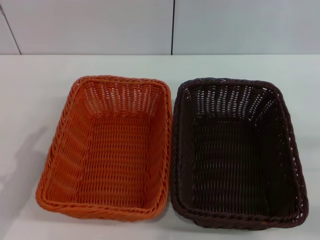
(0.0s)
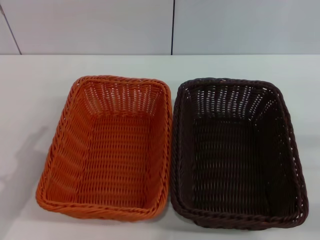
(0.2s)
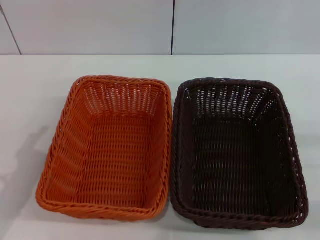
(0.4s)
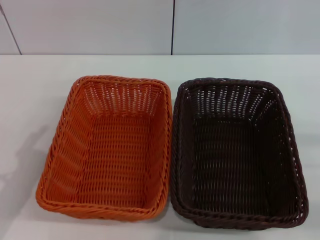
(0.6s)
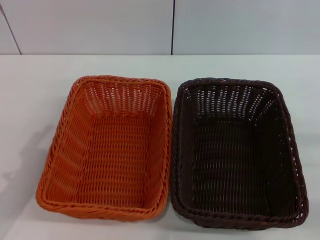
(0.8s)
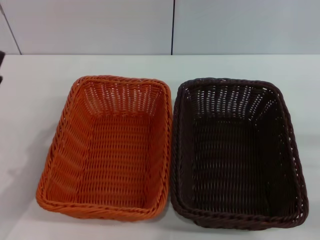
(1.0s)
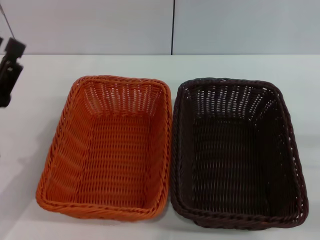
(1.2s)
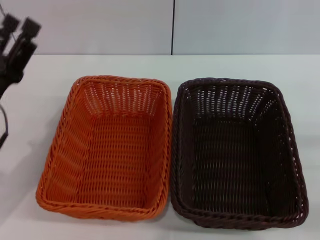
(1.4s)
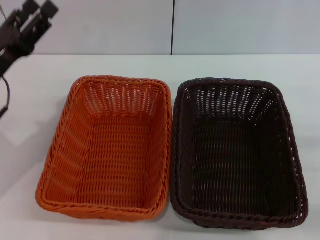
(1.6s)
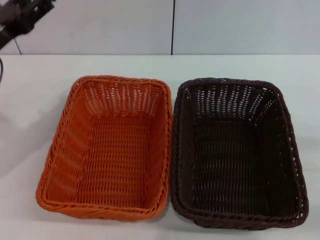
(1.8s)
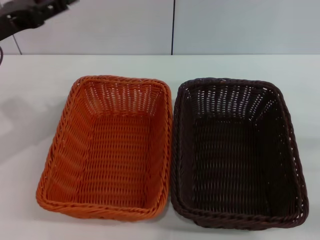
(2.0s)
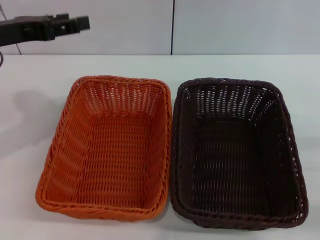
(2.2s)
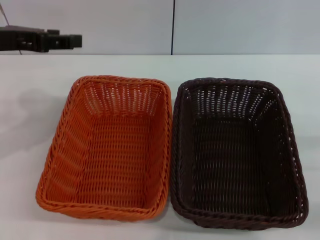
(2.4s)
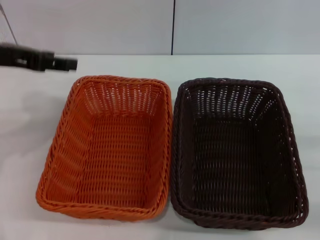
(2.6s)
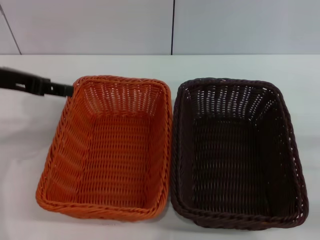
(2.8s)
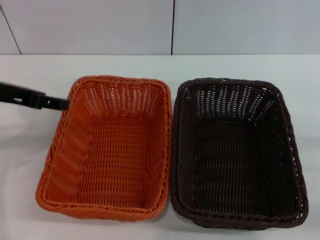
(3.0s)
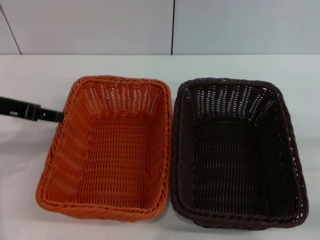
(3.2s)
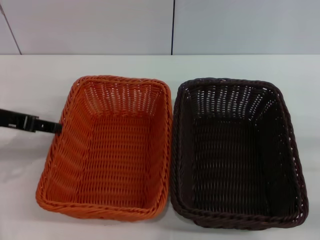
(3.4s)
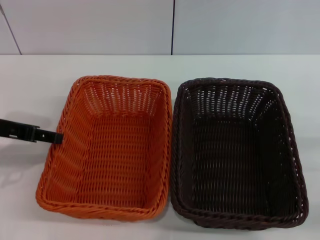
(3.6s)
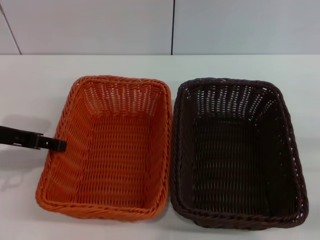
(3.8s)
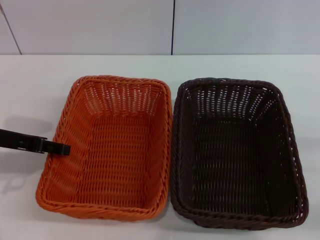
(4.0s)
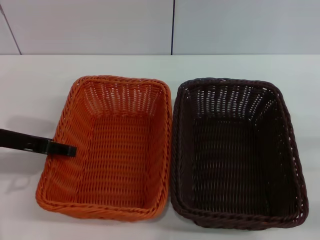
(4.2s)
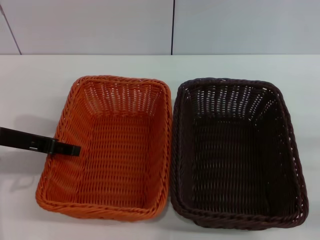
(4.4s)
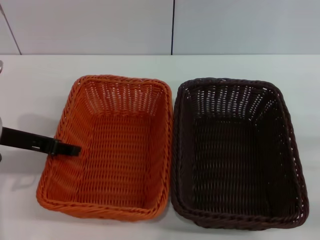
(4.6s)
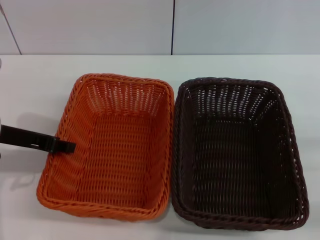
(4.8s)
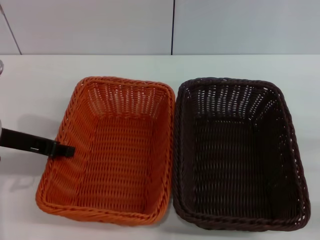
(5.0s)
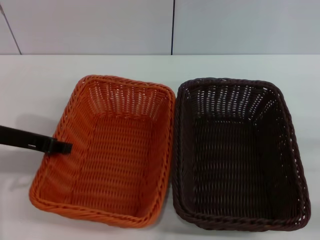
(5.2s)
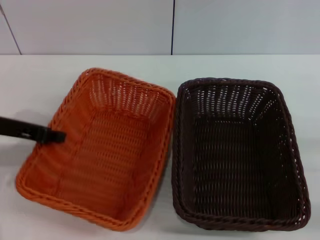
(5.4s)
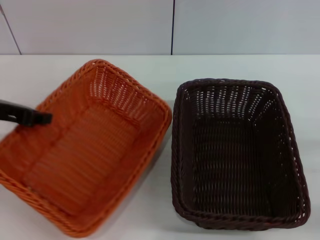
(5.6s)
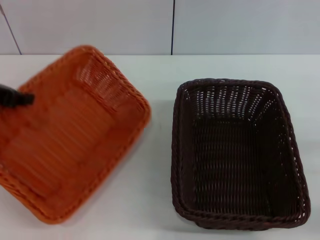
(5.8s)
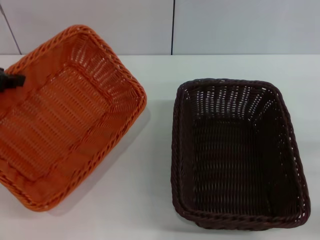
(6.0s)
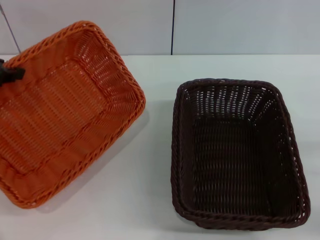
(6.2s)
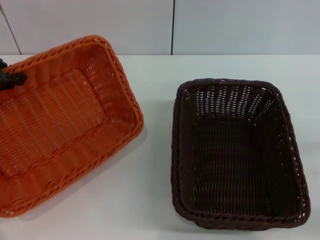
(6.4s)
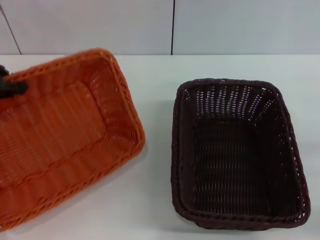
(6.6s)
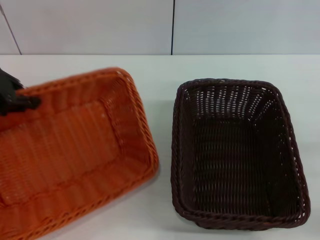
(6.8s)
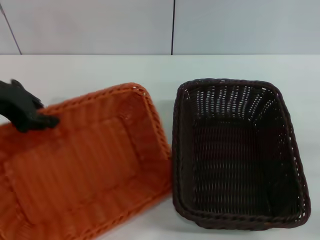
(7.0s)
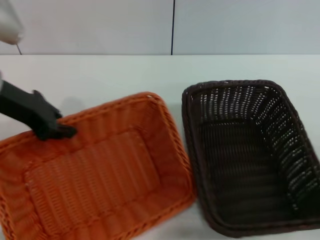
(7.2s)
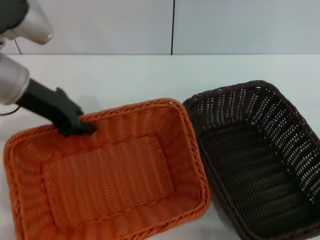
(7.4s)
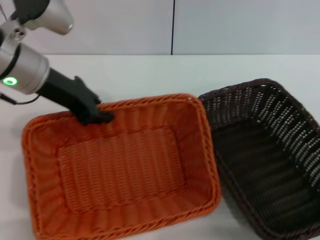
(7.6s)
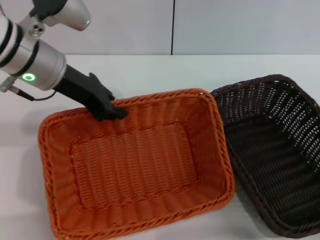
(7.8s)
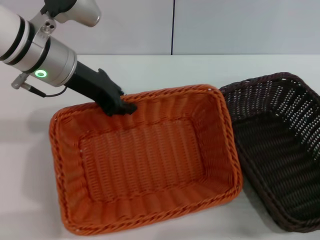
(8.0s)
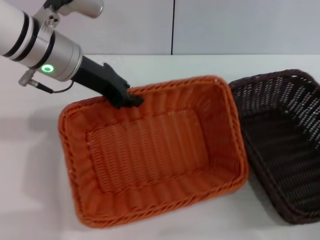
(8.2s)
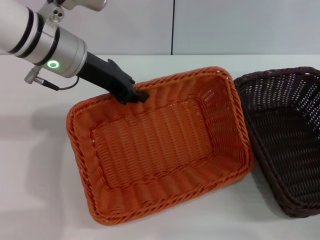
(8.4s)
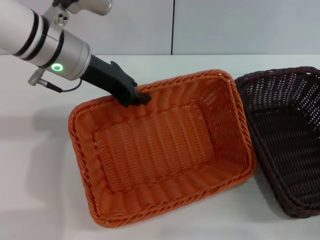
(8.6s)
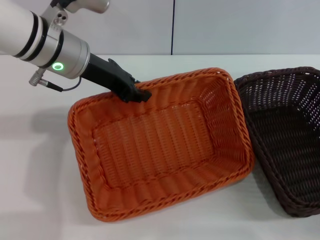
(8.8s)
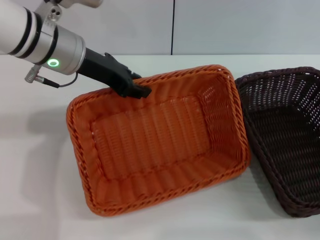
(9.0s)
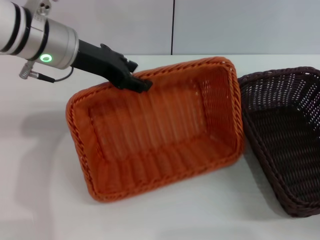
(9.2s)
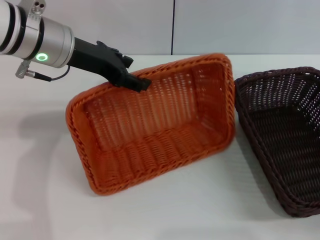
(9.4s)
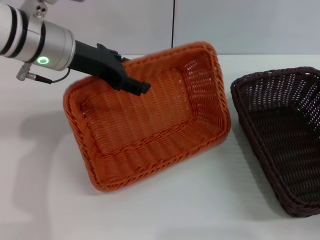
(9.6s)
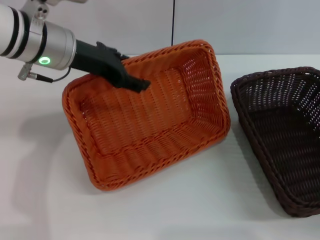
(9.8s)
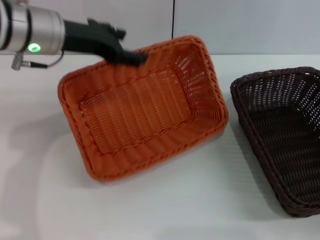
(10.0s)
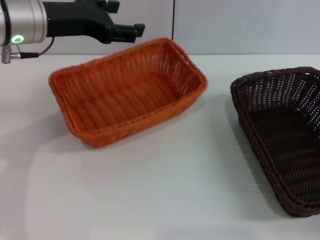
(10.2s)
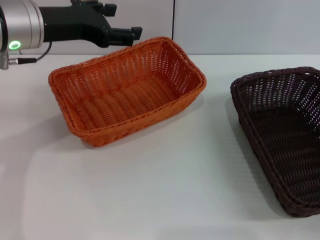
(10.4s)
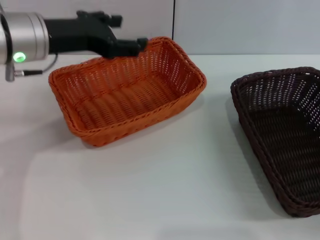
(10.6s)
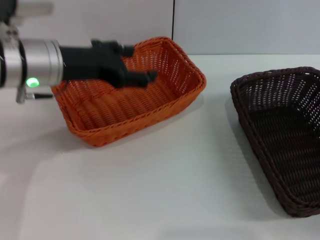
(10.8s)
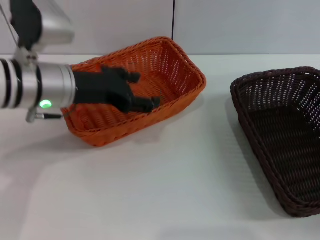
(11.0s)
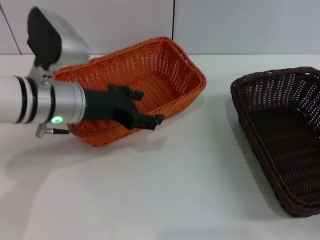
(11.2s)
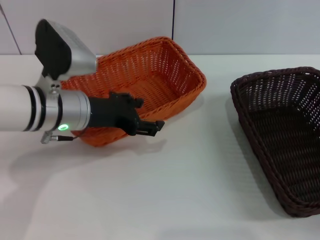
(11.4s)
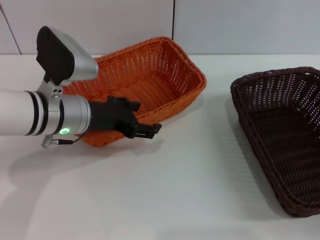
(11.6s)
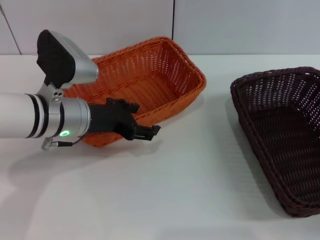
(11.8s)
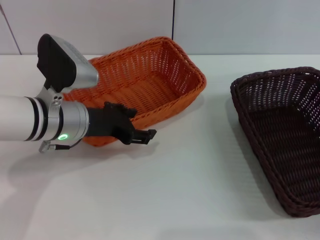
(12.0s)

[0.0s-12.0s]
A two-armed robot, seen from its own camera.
Step, 0.0s to 5.8s: Pick up the light basket with the left gripper.
0.0s to 1.6s: The left gripper shifts about 10 cm forward.
1.6s to 3.0s: The left gripper travels upward by roughly 10 cm.
3.0s to 4.4s: The left gripper travels downward by some 5 cm.
4.4s to 6.0s: The left gripper shifts roughly 10 cm upward, and closes up.
6.0s to 7.6s: The left gripper heads to the right, covering about 10 cm.
9.0s to 10.4s: The left gripper moves about 5 cm, and opens up.
10.4s to 12.0s: The left gripper travels downward by roughly 10 cm.

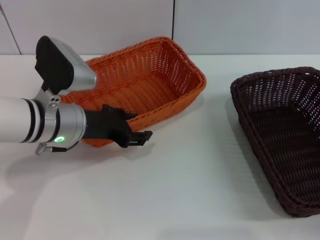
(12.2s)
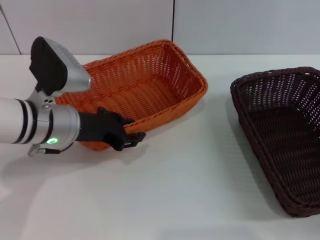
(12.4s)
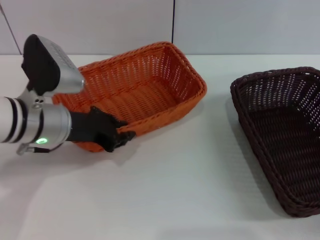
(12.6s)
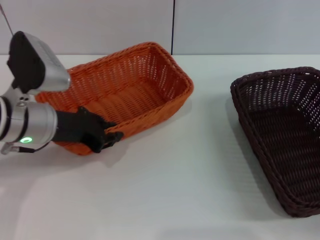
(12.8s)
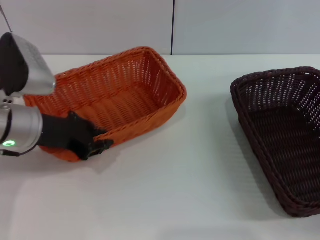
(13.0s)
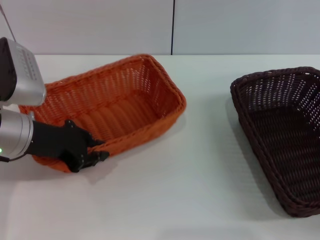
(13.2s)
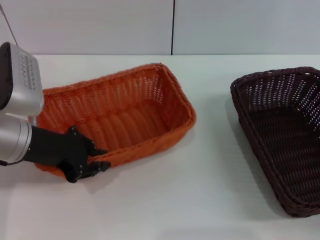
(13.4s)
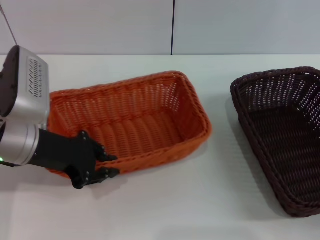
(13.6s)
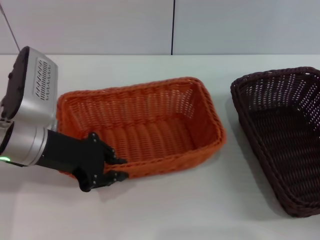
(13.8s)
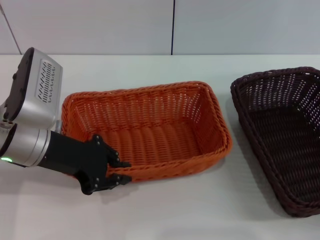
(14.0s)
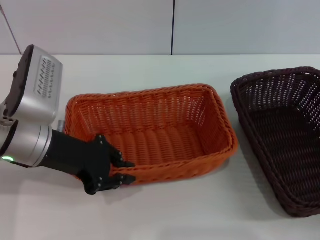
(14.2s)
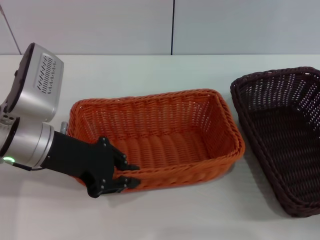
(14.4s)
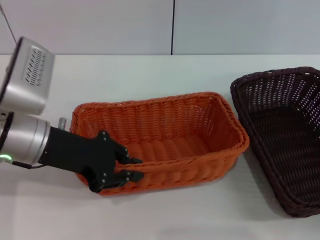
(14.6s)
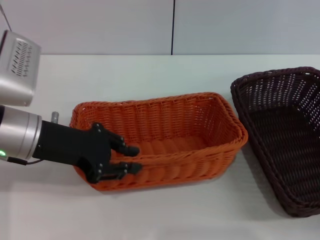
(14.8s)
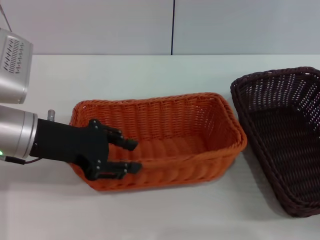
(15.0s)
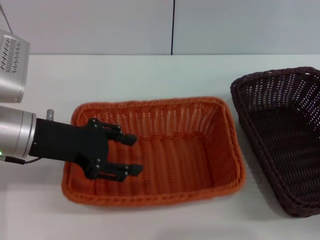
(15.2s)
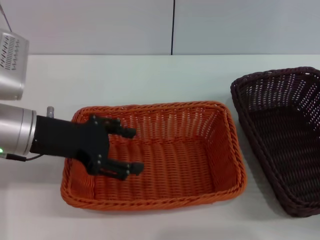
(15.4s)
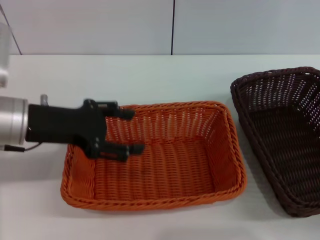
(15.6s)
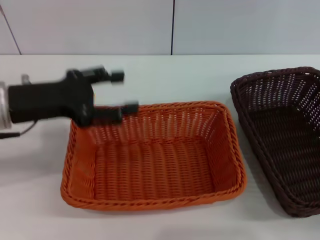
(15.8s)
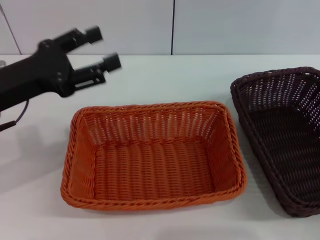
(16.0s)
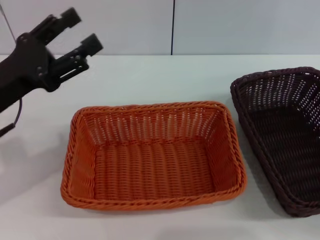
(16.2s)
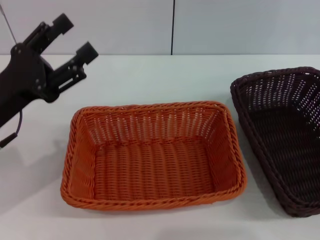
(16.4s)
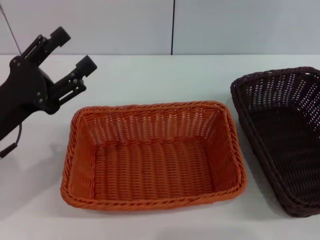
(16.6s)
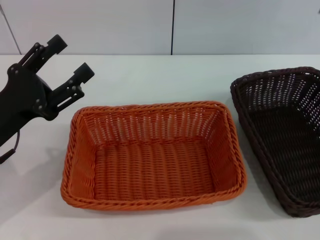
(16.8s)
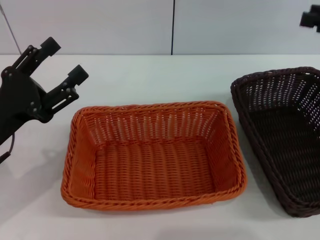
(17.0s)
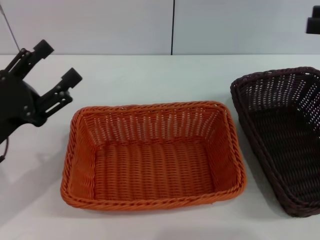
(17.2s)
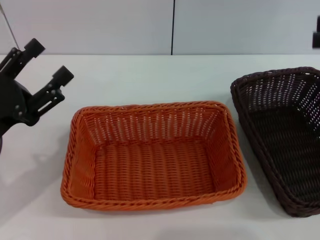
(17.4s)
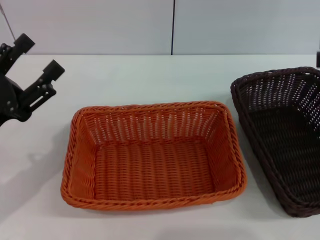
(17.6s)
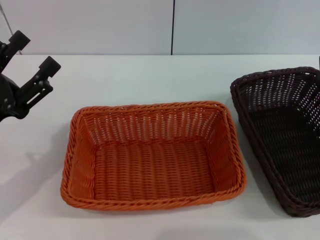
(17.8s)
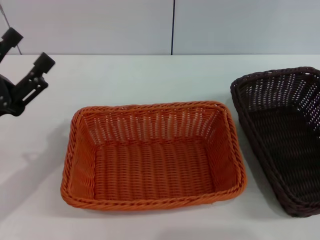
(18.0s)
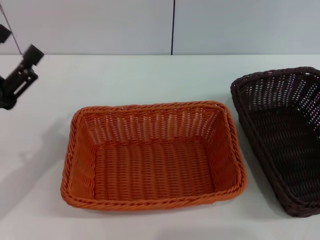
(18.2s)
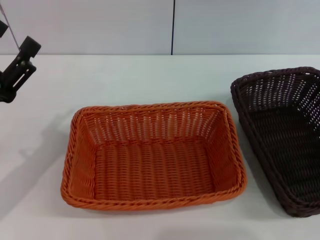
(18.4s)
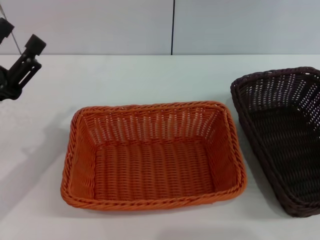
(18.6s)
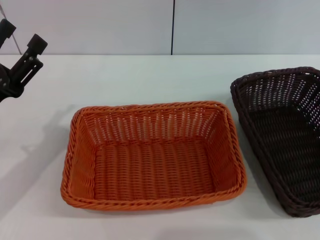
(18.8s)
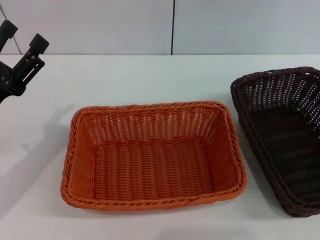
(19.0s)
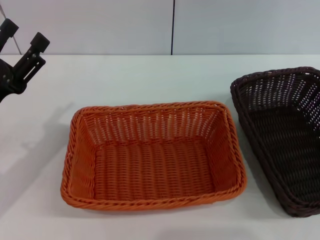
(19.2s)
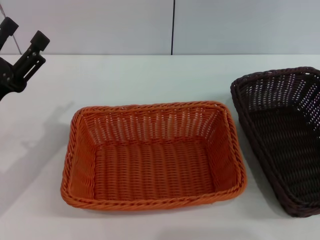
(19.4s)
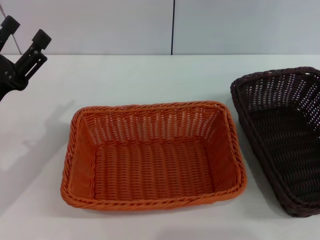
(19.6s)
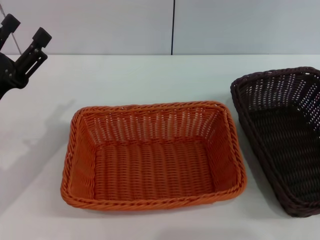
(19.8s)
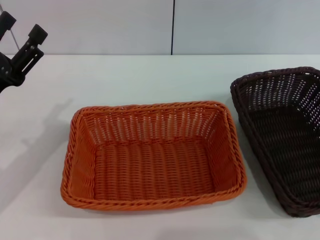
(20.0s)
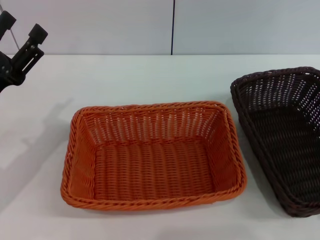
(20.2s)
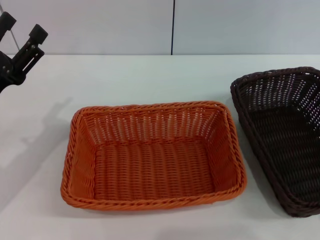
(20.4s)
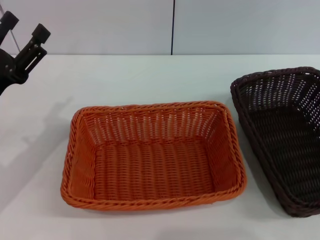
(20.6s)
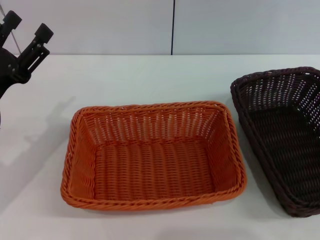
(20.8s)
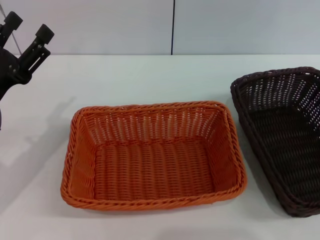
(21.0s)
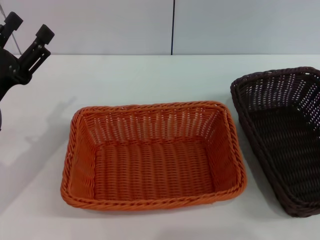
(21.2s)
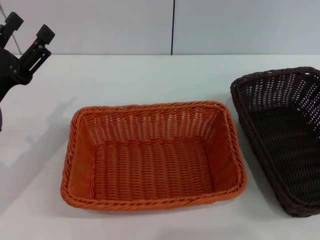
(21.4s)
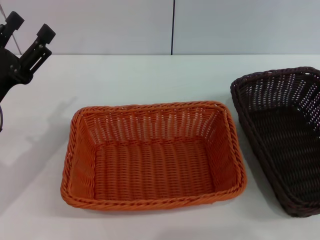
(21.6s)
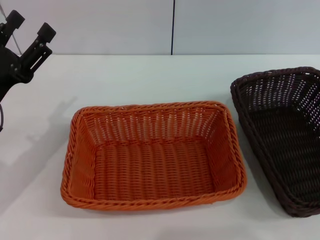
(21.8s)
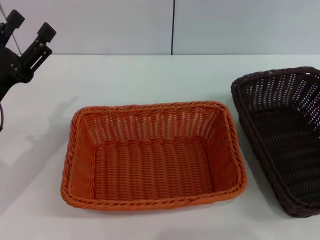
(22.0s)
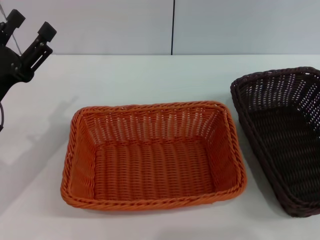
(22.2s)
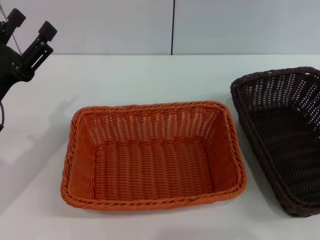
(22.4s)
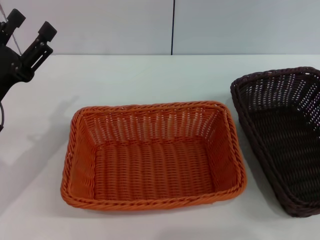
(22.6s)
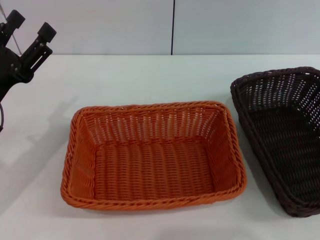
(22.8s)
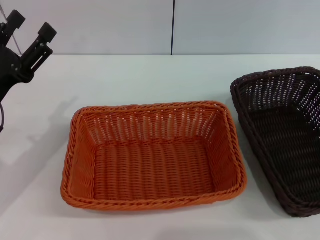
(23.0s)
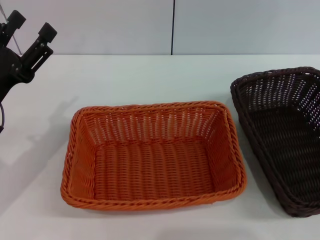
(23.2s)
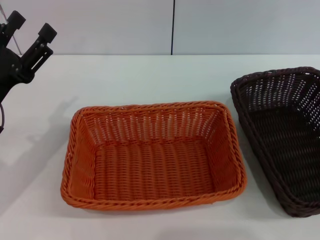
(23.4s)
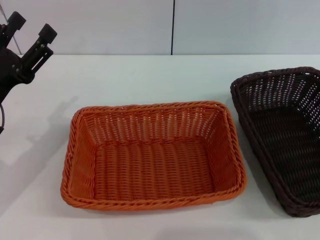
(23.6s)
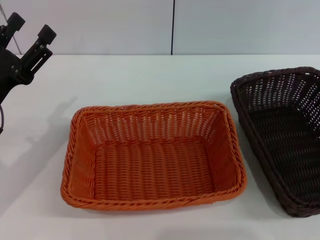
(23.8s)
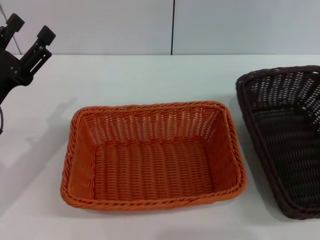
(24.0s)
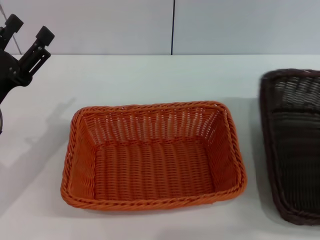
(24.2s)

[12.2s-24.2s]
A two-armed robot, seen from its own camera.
Step, 12.2s to 15.2s: Place the light basket in the center of view with the left gripper.
12.2s to 13.8s: The left gripper ends up approximately 5 cm from where it was, and closes.
15.2s to 16.6s: The left gripper changes place by roughly 5 cm, and opens its fingers. Meanwhile the right gripper goes some 15 cm upward and forward.
19.8s to 21.2s: The grippers move only a little.
21.2s to 22.6s: Both grippers stay put.
22.6s to 24.2s: There are only small adjustments of the grippers.
